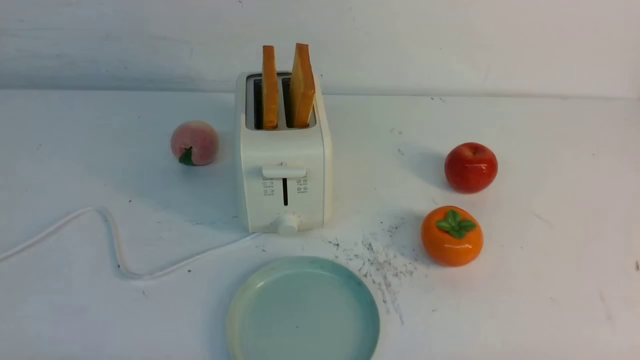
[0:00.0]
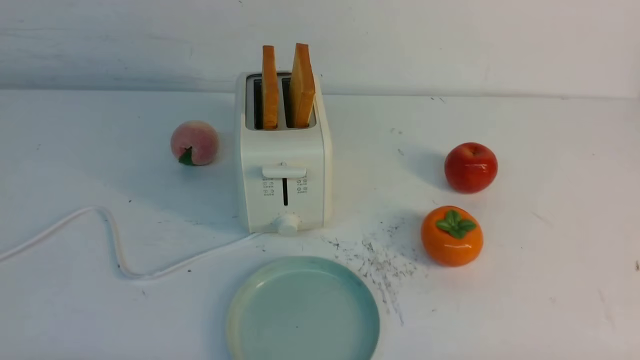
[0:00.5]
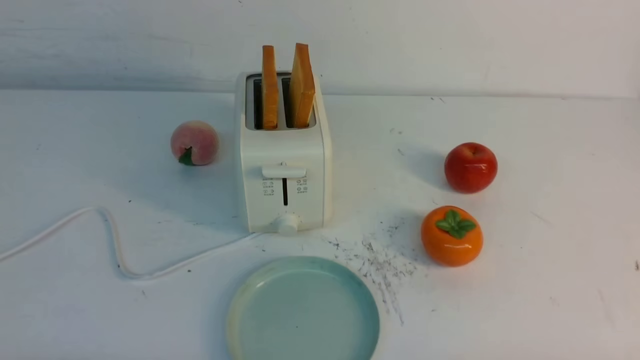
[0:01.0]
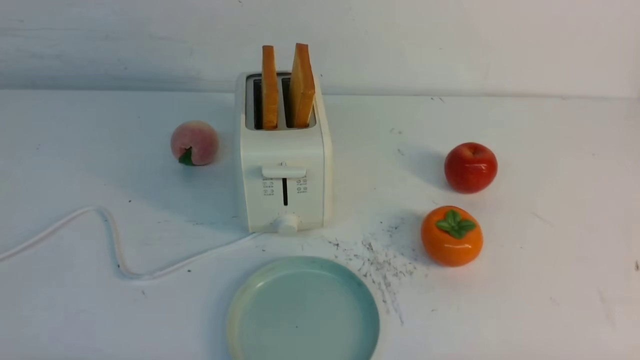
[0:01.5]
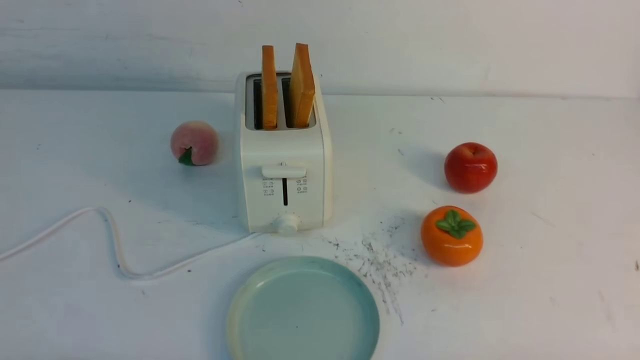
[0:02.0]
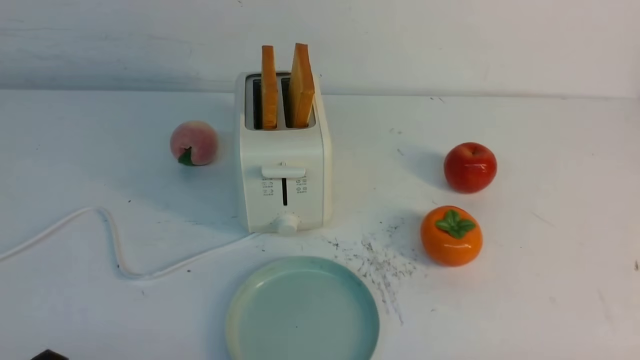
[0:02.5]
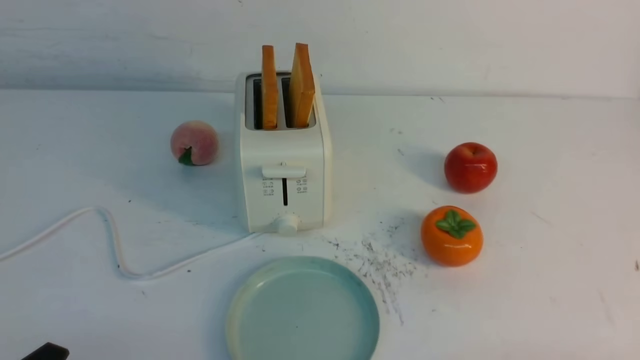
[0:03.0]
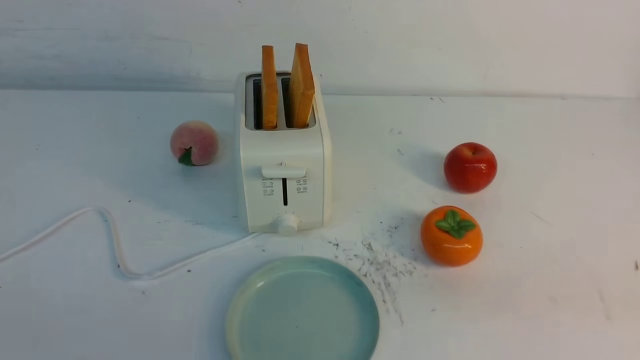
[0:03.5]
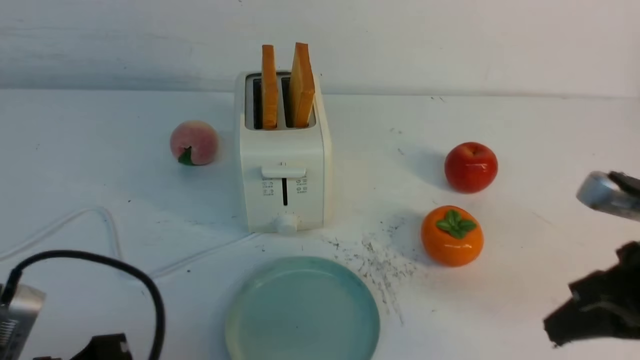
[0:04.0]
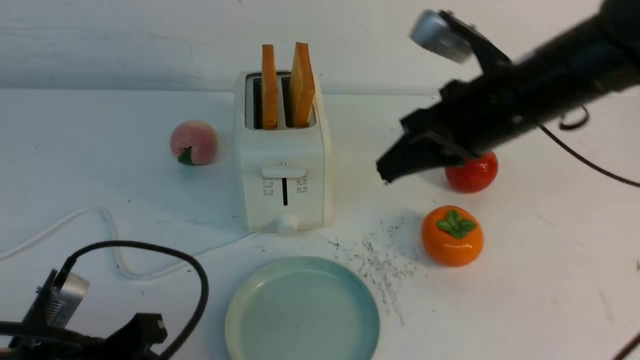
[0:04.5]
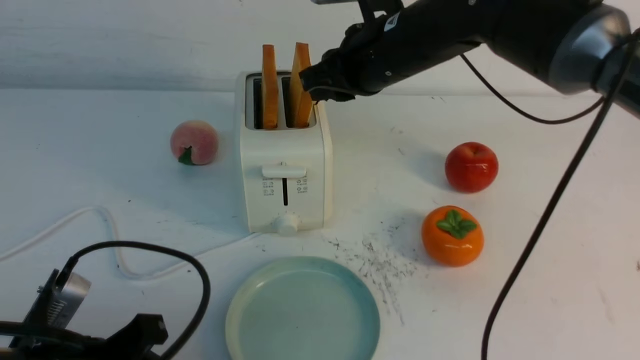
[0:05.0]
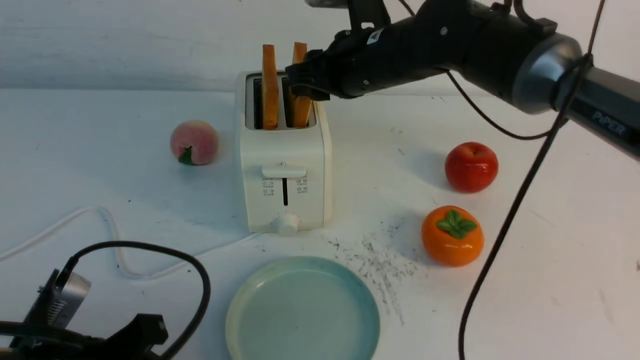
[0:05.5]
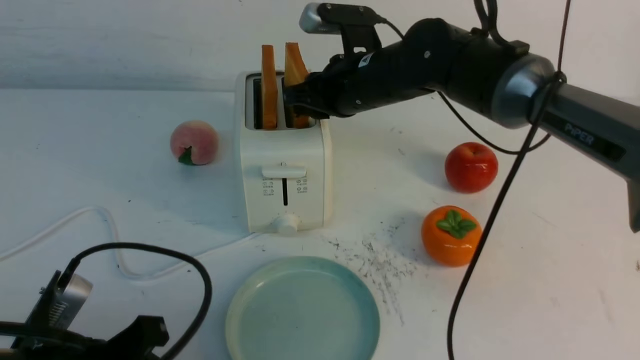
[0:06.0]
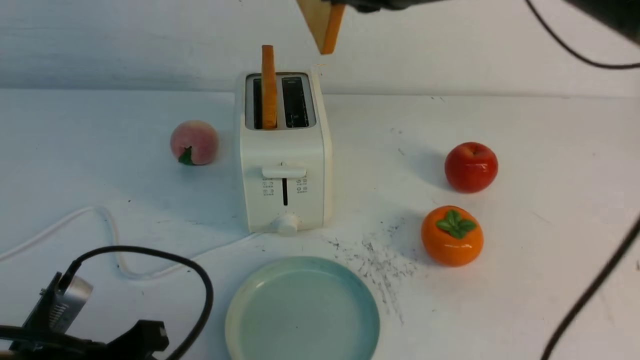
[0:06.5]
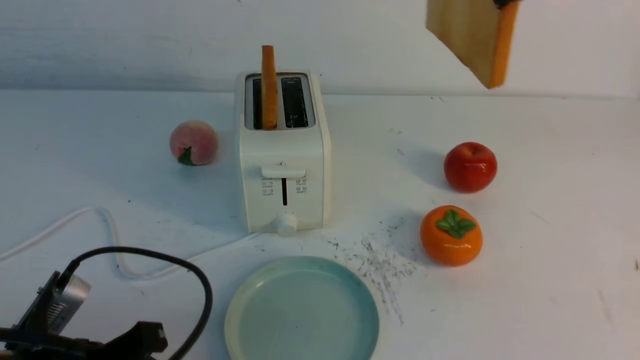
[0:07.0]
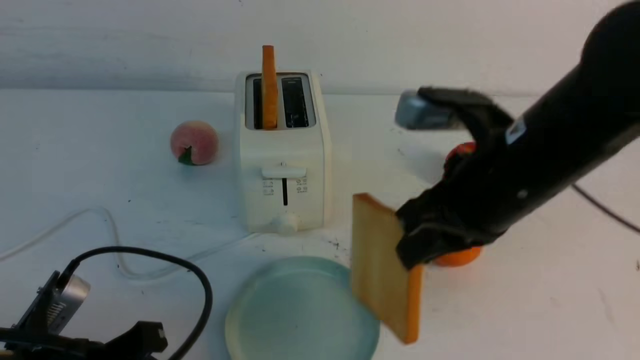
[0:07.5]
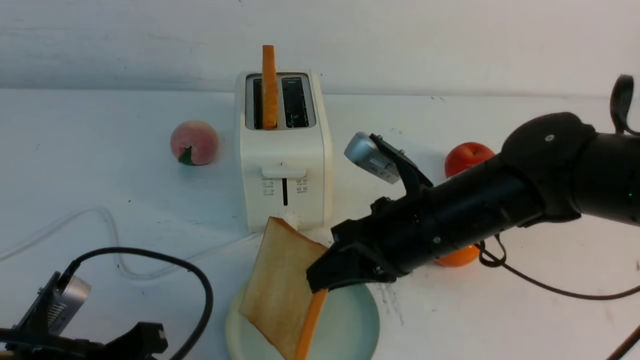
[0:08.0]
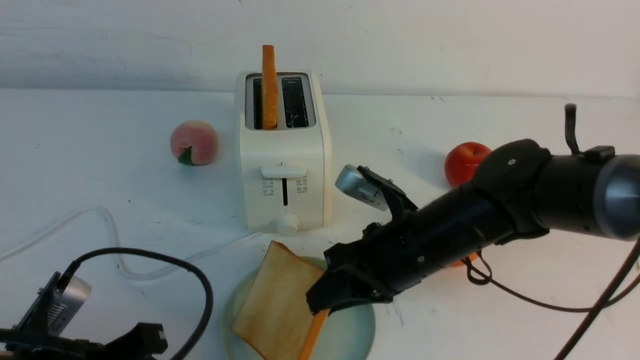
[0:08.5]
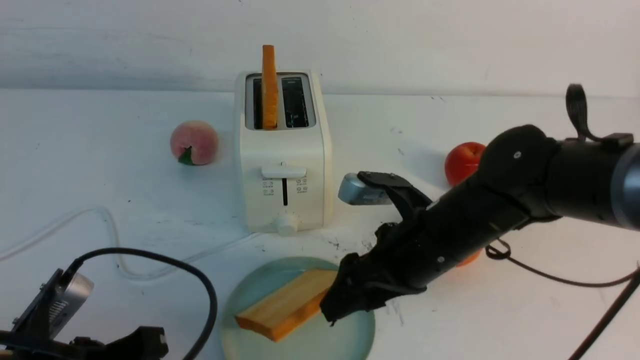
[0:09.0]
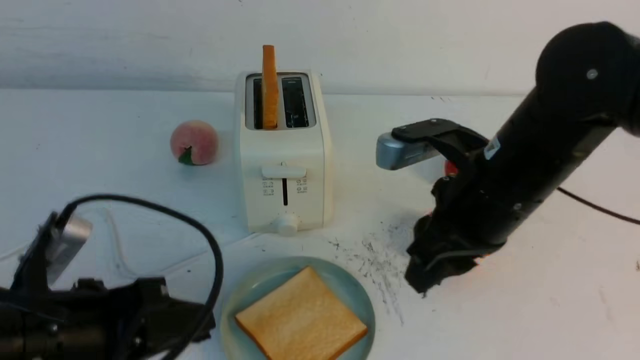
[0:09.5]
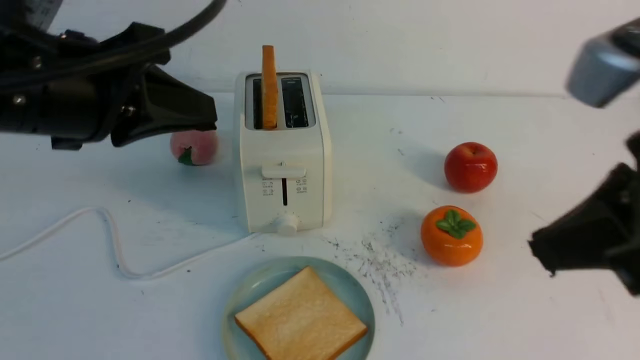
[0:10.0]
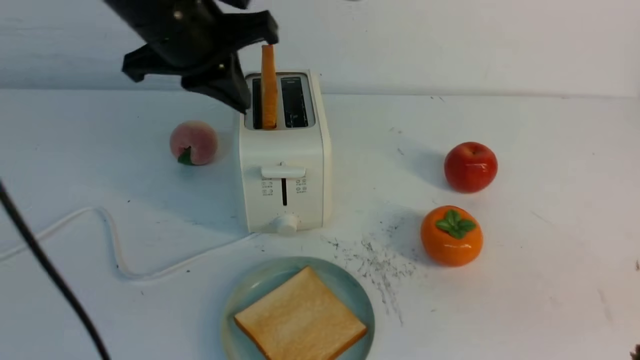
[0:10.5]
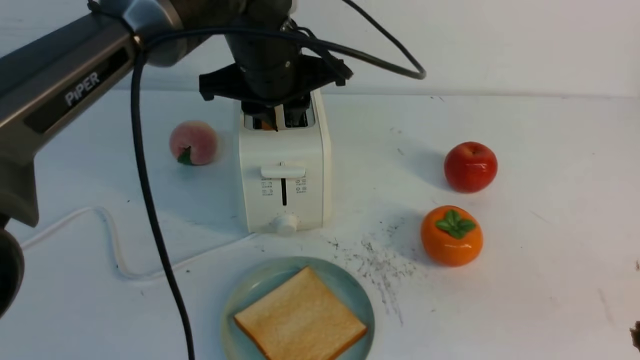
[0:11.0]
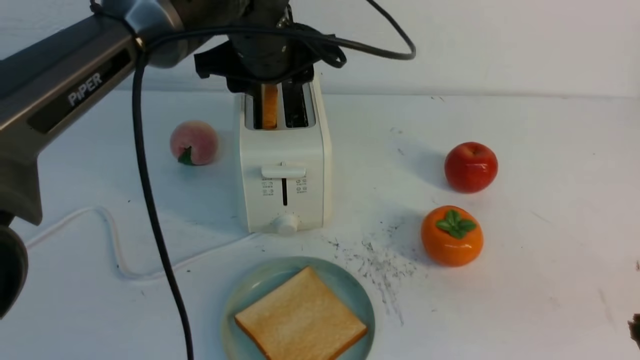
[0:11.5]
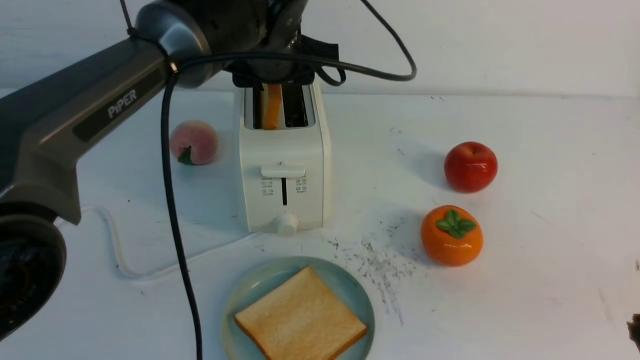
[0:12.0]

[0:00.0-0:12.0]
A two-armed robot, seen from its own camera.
Task of the whole recording: take toasted bread from bread machine on white table place on plate.
Step, 0:00.0 to 0:06.0: use the right arm to take out a slice of bread.
Step, 0:06.5 to 0:09.0: use the right arm to put a slice of bread into the plate.
0:00.0 to 0:02.0: Neither gripper changes place.
0:02.0 to 0:04.0: The right gripper is displaced forward and upward by approximately 20 cm, and closes; the left gripper moves upward, to the right and forward, some 10 cm, and closes its fingers.
0:04.0 to 0:06.0: The right gripper moves forward and to the left, roughly 30 cm, and opens up.
0:06.0 to 0:08.0: The right gripper heads backward, covering roughly 15 cm, and goes upward and returns, roughly 20 cm each way.
0:08.0 to 0:10.0: The left gripper heads upward and forward, covering approximately 20 cm. Meanwhile the right gripper goes roughly 25 cm upward, backward and to the right, and opens, then closes again.
0:10.0 to 0:12.0: The left gripper moves forward and to the right, some 20 cm, and opens. Meanwhile the right gripper heads backward, covering about 5 cm.

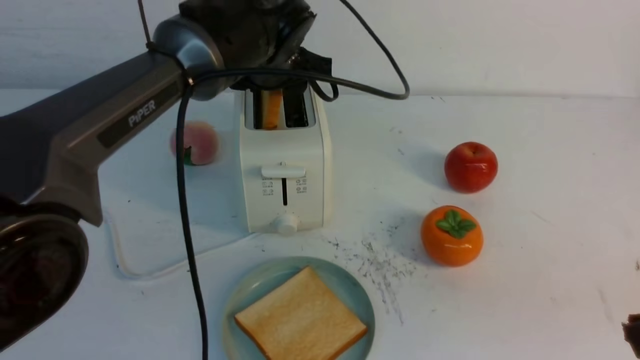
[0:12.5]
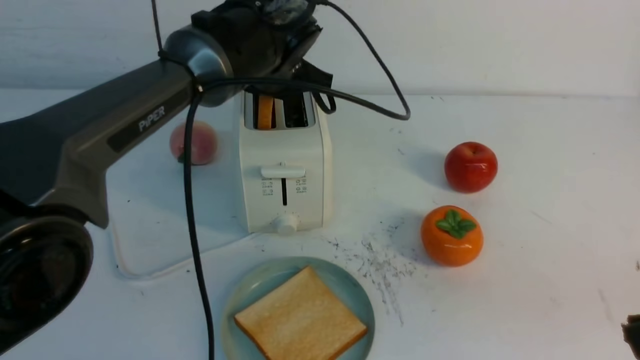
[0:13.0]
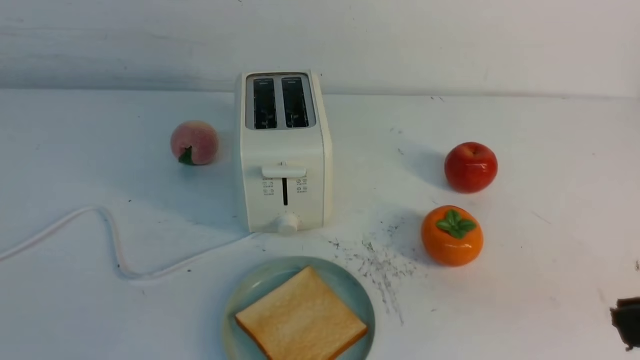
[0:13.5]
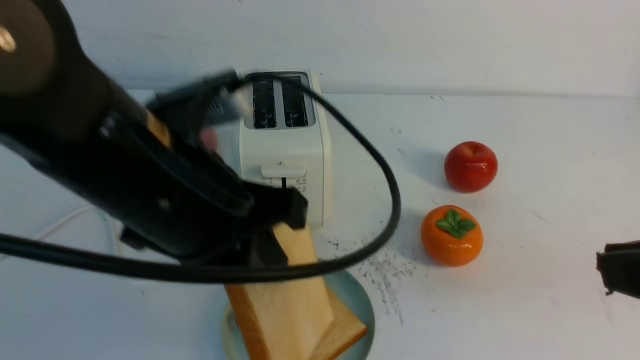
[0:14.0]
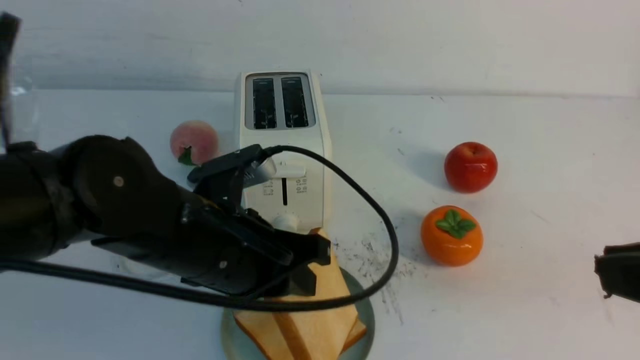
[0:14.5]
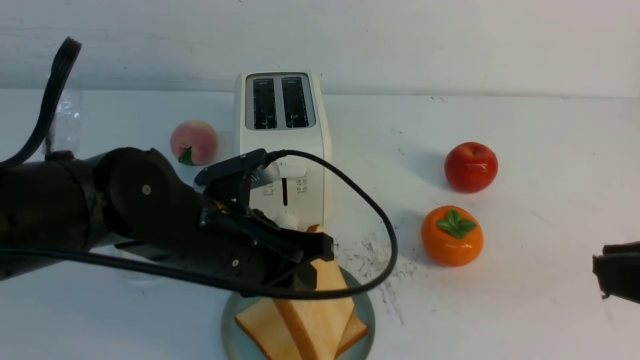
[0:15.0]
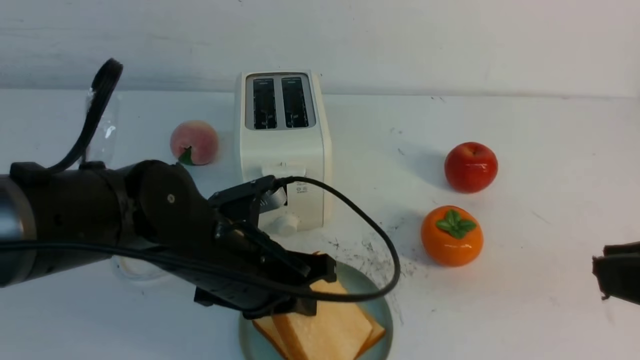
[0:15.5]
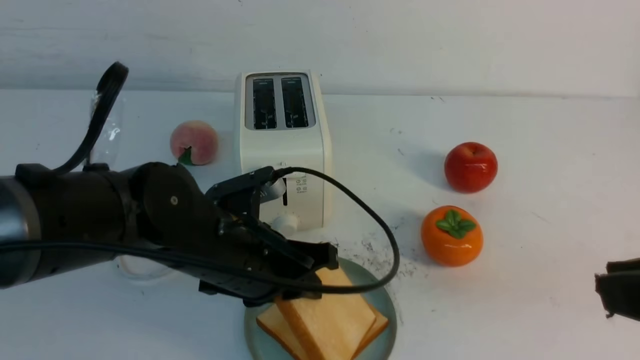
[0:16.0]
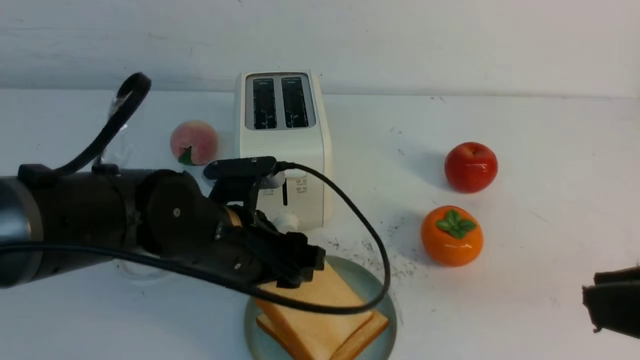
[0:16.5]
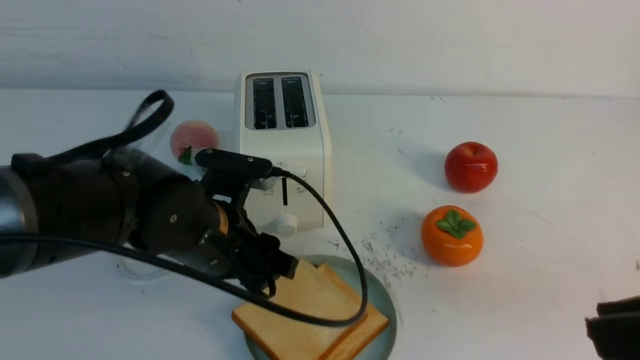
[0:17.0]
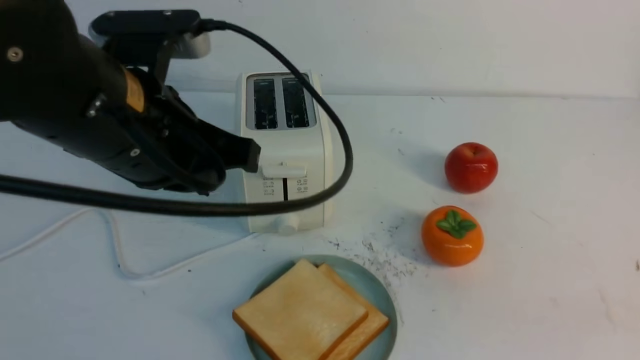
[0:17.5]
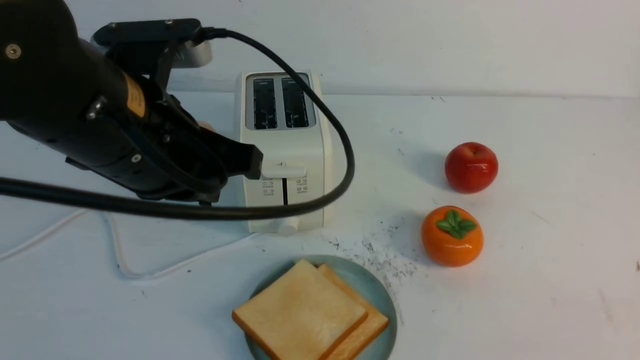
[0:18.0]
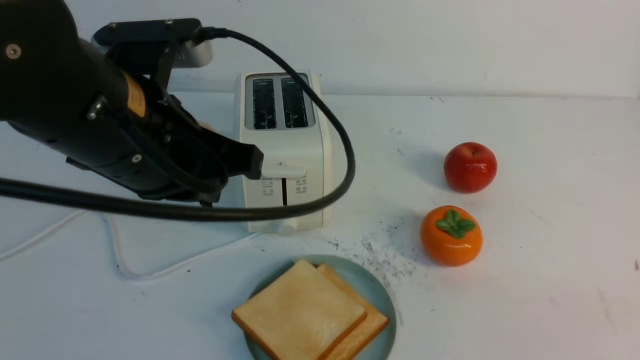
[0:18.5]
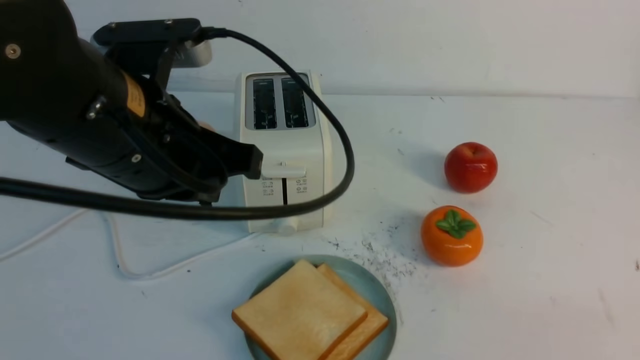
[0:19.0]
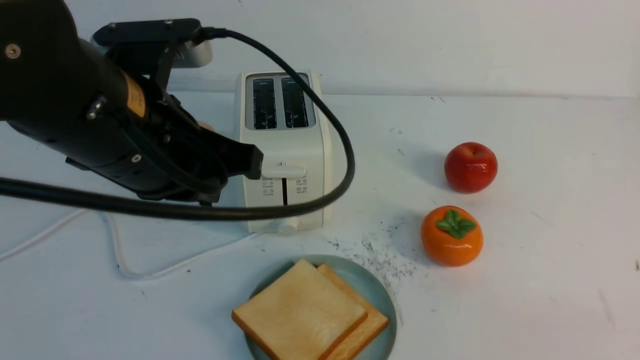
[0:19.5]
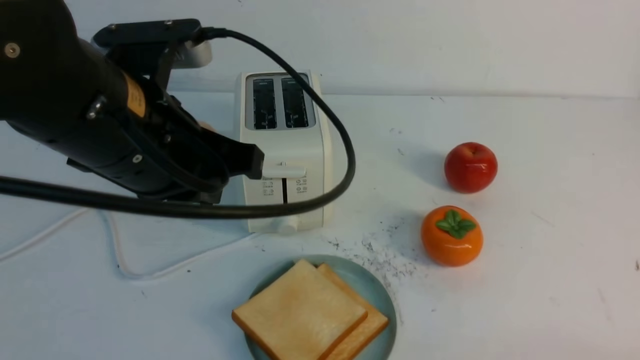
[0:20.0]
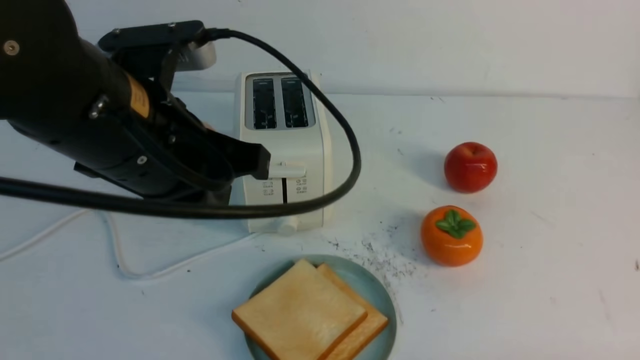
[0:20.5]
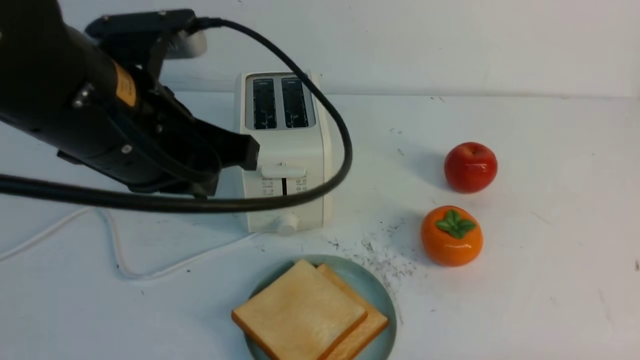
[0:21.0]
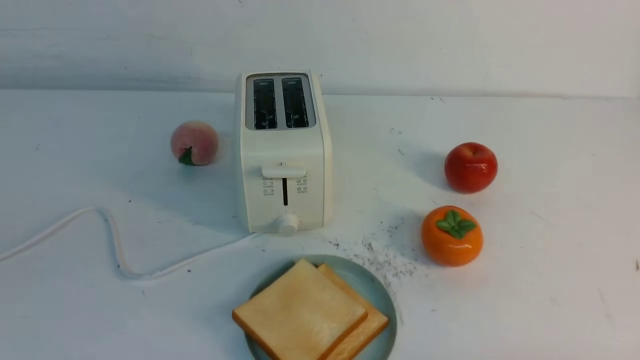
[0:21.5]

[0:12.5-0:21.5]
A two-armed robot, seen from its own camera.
Task of the whole recording: take toasted bread from bread machine on white table place on plate.
Step, 0:13.5 to 0:16.5: use the left arm to put a slice of bread into the empty plate.
0:12.5 to 0:14.5: The left gripper moves backward, some 20 cm, travels upward and back again, about 20 cm each way, and closes its fingers.
0:14.5 to 0:17.0: The left gripper opens.
0:17.0 to 0:19.5: The left gripper heads upward, covering about 10 cm, and closes its fingers, while the right gripper is displaced downward and to the right by approximately 15 cm.
0:19.5 to 0:21.5: The right gripper heads downward, covering about 10 cm. Meanwhile the left gripper heads backward, to the left and upward, covering approximately 20 cm.
